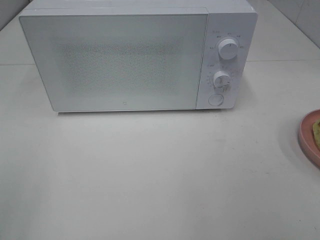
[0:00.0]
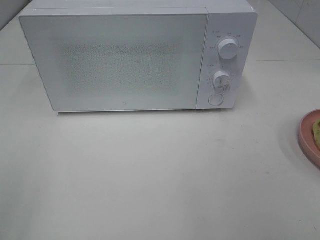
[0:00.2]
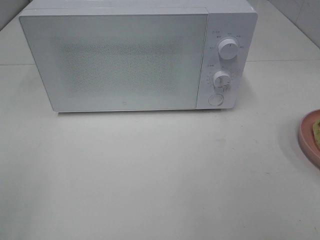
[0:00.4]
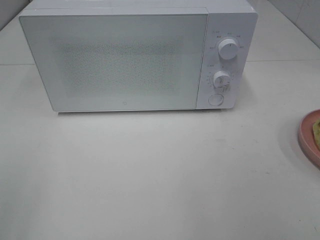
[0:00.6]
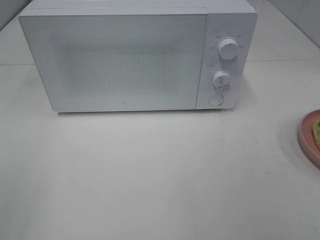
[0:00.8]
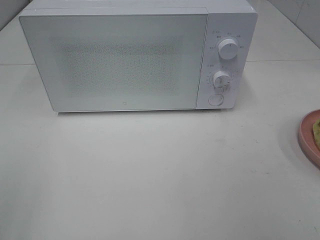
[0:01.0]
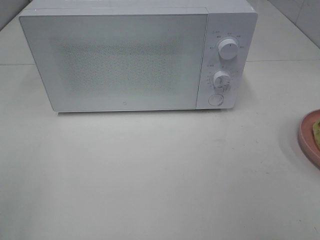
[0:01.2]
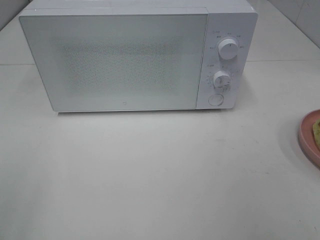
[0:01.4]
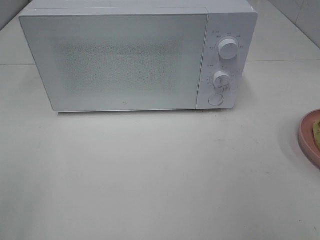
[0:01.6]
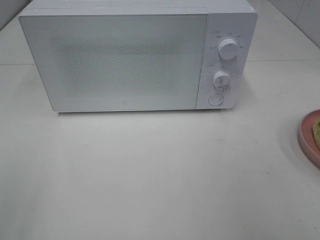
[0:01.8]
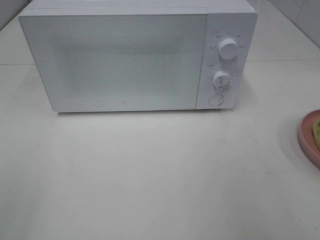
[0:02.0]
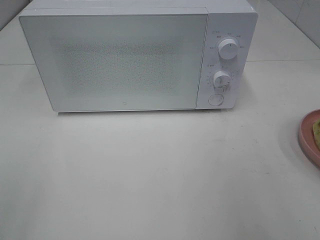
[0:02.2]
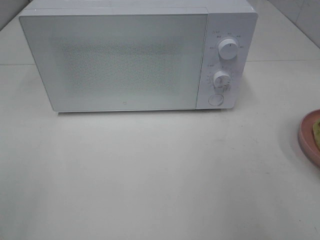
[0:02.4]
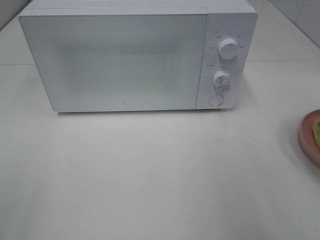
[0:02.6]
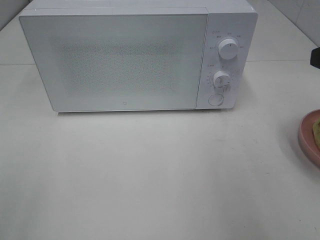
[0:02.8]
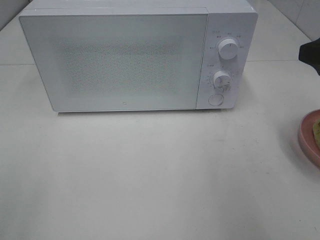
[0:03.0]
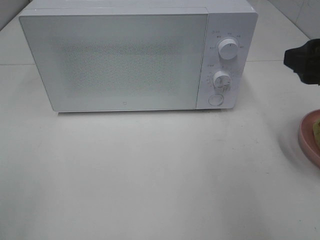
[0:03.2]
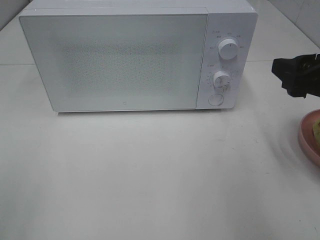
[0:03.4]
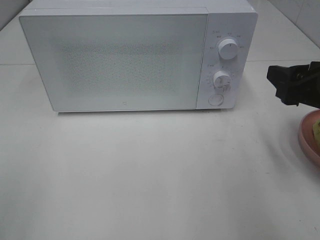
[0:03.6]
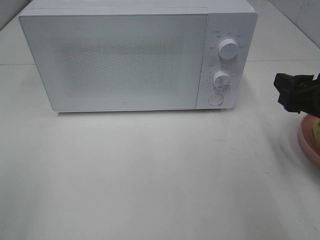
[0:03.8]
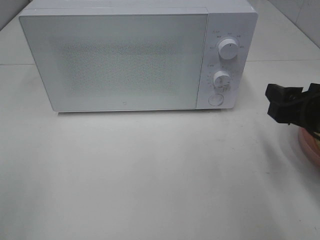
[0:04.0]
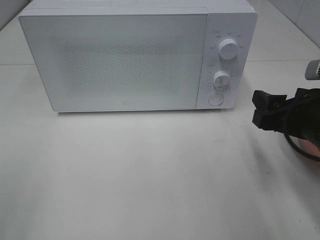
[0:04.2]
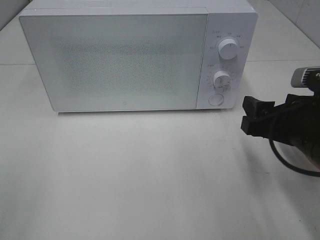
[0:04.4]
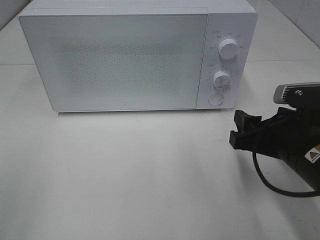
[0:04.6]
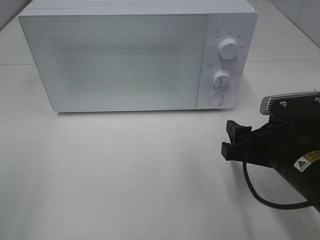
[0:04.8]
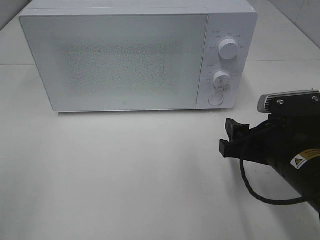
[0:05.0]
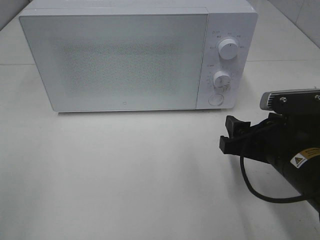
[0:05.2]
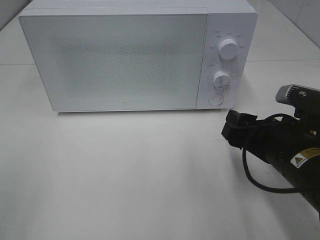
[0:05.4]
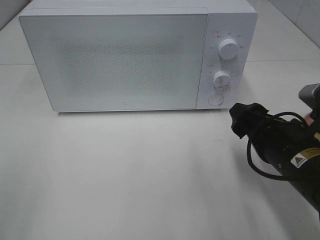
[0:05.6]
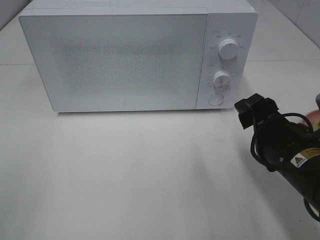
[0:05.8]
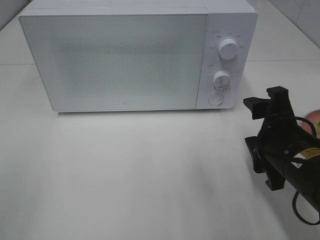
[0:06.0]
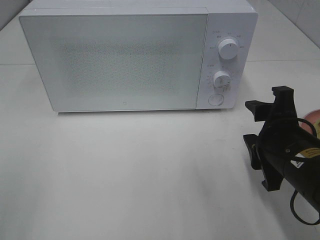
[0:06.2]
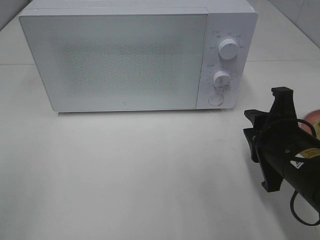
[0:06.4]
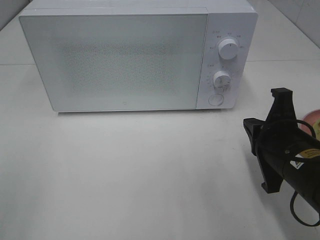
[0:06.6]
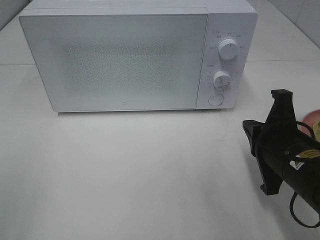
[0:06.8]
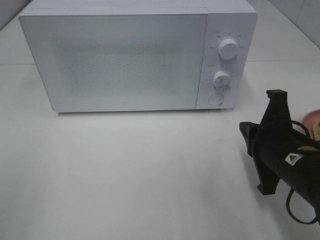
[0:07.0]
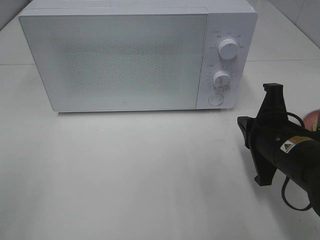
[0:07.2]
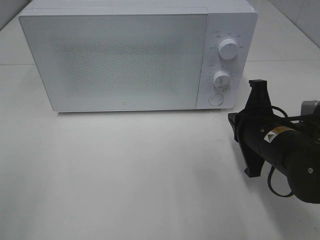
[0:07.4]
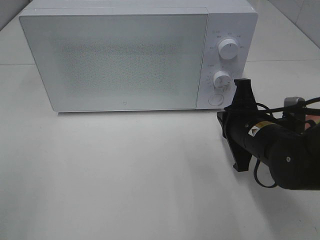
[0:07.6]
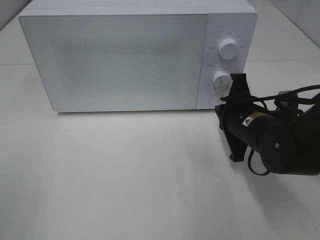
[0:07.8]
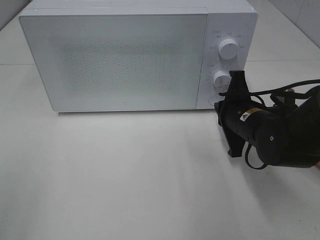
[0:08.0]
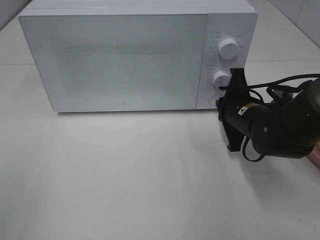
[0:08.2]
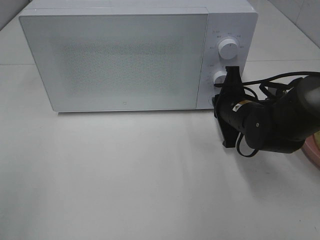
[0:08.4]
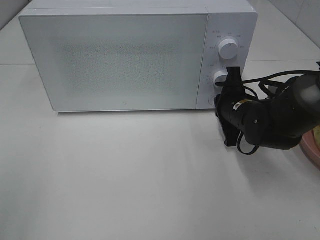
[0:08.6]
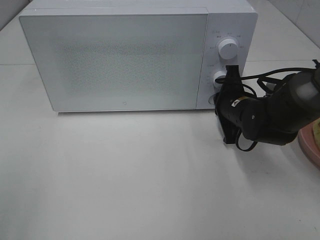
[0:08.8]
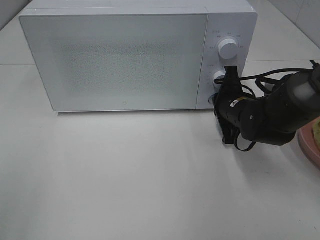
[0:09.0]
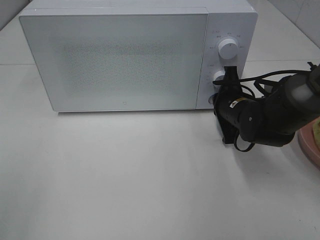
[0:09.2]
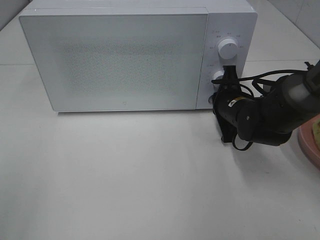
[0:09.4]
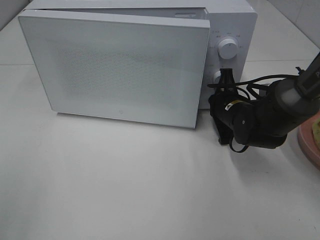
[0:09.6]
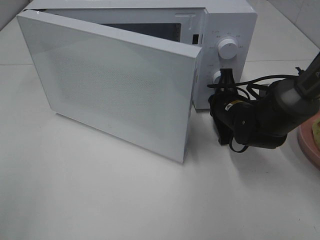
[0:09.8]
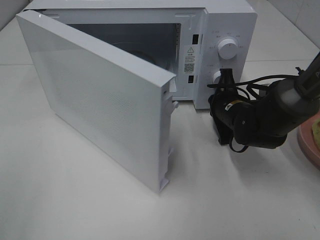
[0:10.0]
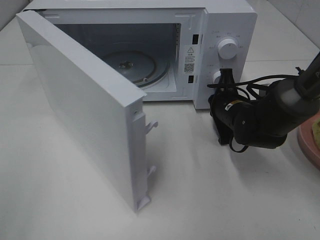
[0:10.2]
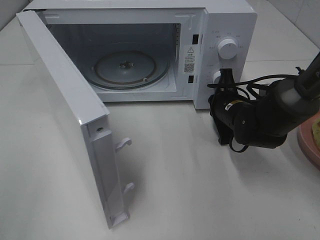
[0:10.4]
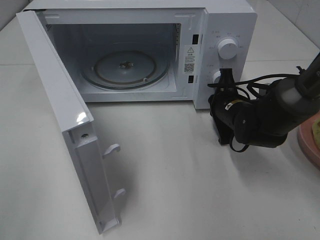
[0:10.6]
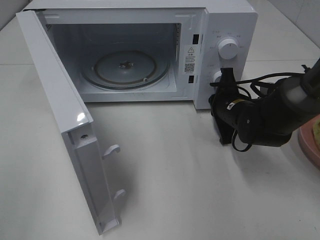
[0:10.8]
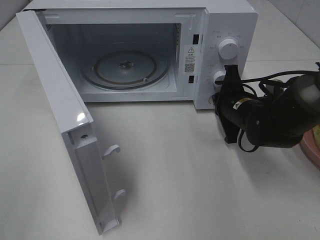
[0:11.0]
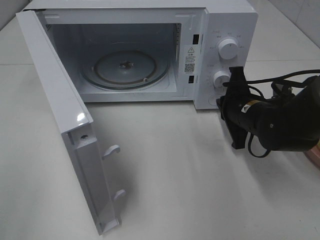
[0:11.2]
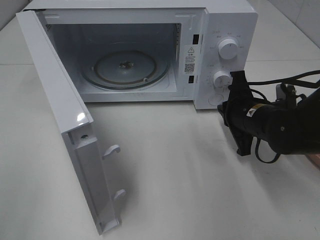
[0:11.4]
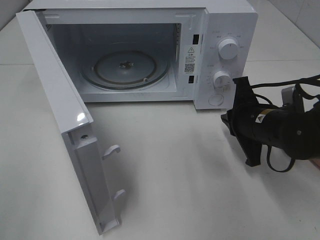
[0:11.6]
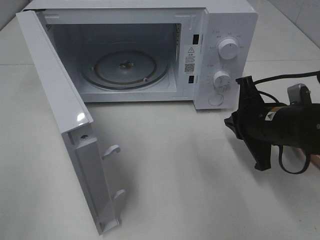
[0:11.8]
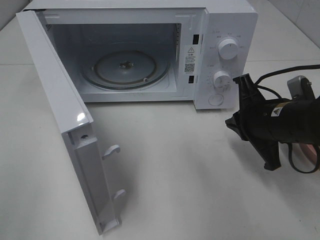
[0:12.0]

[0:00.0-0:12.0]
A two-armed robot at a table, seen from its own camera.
Task of the whole recording: Heat Sandwich.
Step, 0:00.0 to 0:11.2: Right hand: press the switch.
0:01.6 to 0:03.0: The right gripper shifts some 15 cm forward.
0:03.0 to 0:04.4: The right gripper is displaced downward by approximately 10 cm.
0:06.0 to 0:07.6: The right gripper goes approximately 5 cm forward, and closes.
0:07.6 to 0:09.0: The right gripper goes some 10 cm forward.
0:10.4 to 0:12.0: The right gripper is displaced backward and upward by roughly 10 cm.

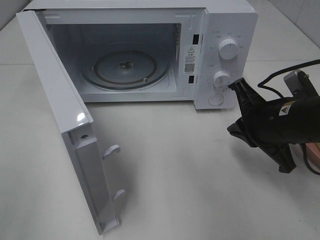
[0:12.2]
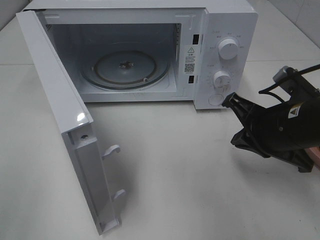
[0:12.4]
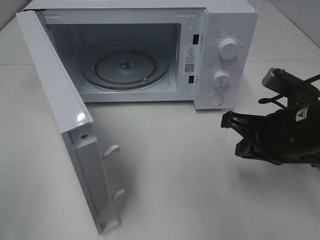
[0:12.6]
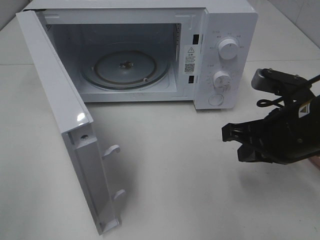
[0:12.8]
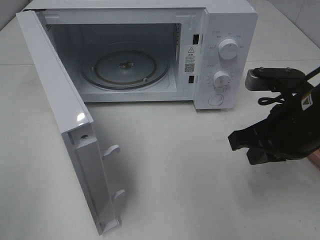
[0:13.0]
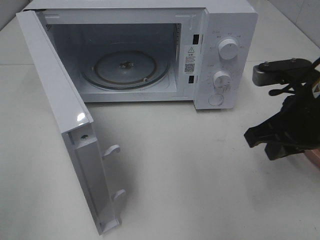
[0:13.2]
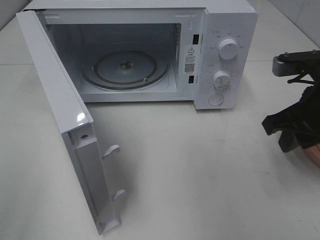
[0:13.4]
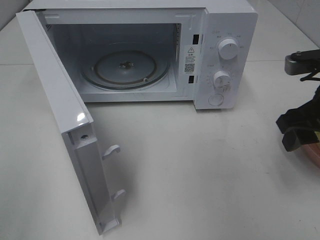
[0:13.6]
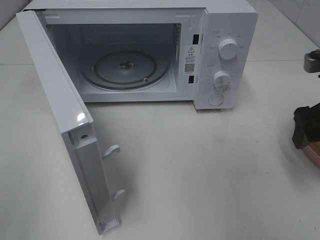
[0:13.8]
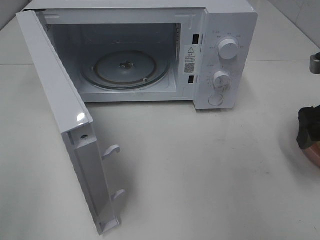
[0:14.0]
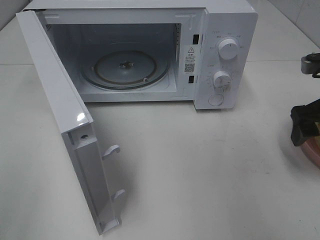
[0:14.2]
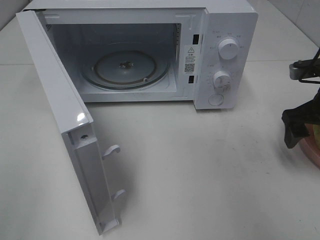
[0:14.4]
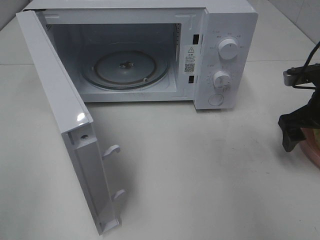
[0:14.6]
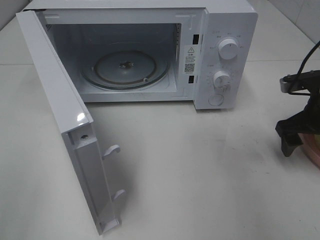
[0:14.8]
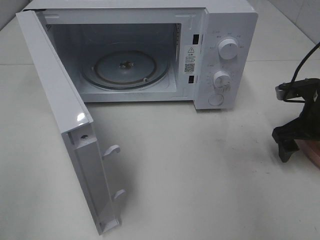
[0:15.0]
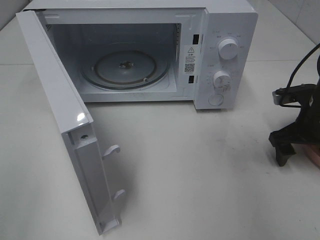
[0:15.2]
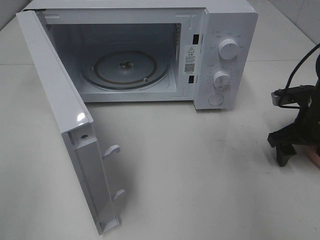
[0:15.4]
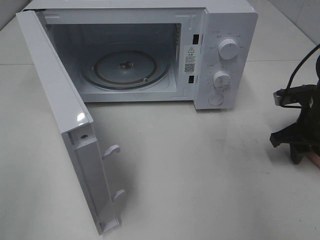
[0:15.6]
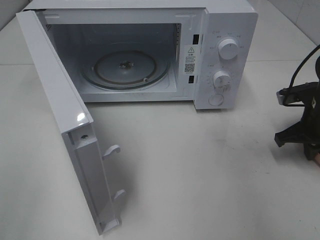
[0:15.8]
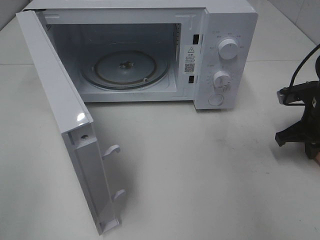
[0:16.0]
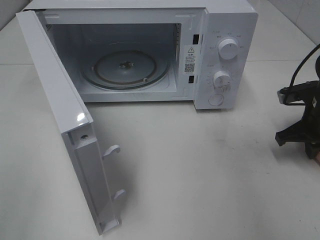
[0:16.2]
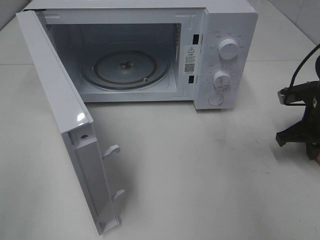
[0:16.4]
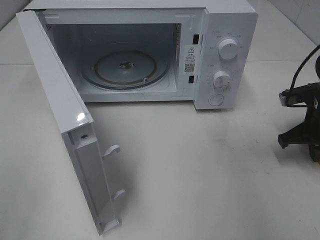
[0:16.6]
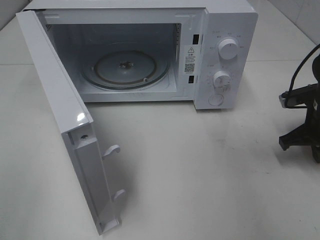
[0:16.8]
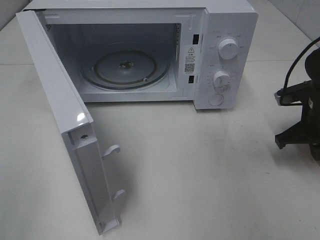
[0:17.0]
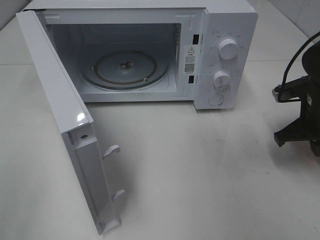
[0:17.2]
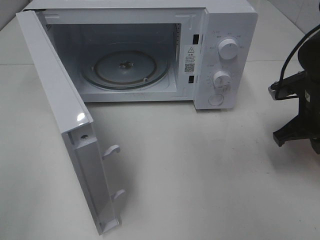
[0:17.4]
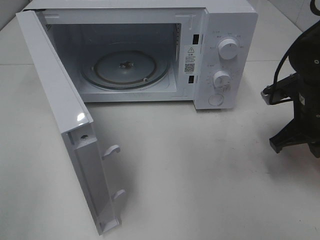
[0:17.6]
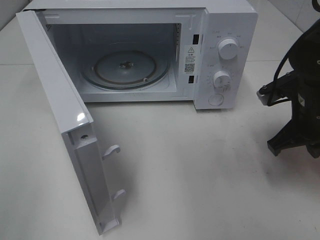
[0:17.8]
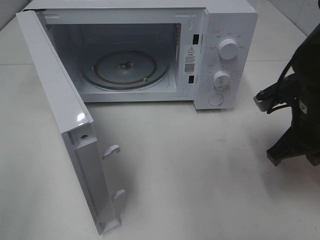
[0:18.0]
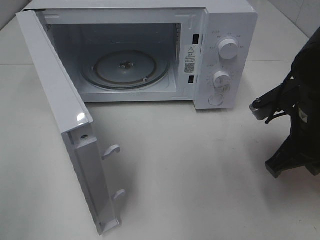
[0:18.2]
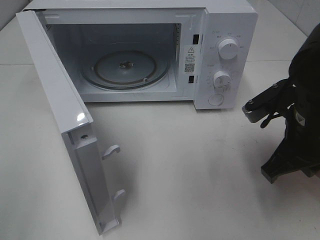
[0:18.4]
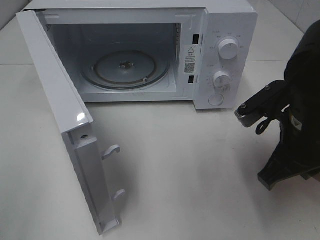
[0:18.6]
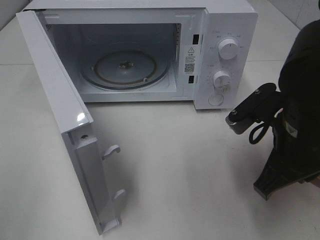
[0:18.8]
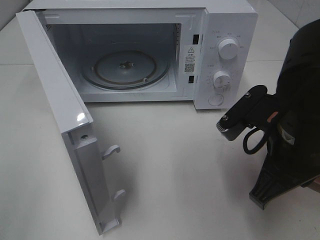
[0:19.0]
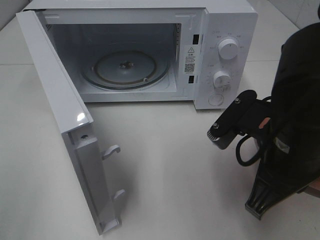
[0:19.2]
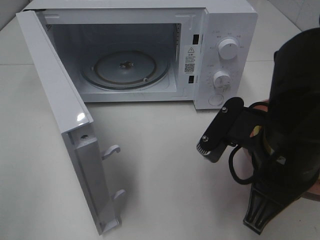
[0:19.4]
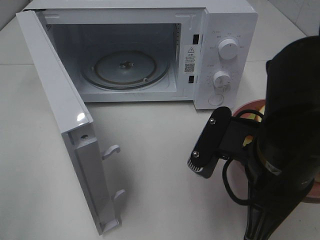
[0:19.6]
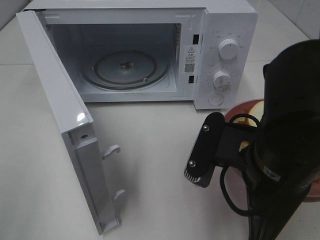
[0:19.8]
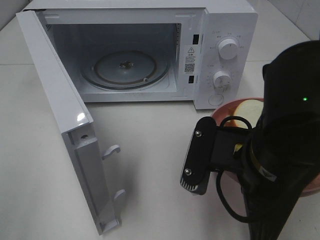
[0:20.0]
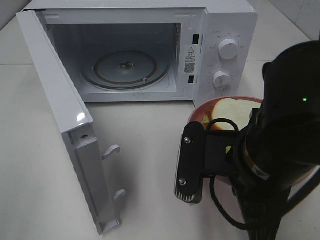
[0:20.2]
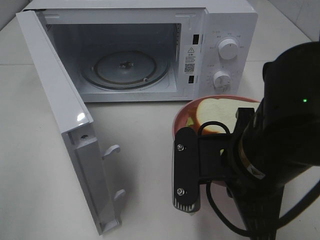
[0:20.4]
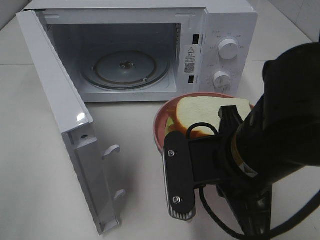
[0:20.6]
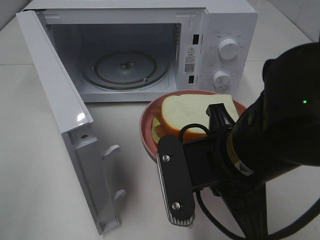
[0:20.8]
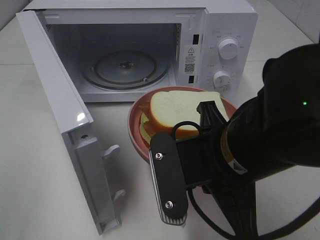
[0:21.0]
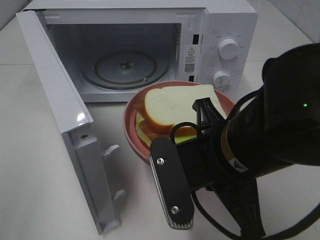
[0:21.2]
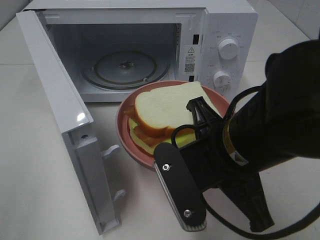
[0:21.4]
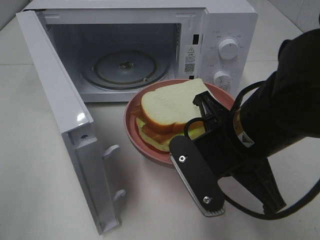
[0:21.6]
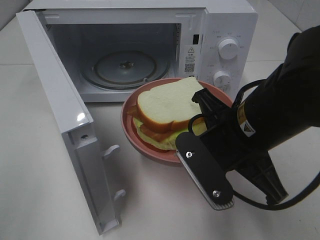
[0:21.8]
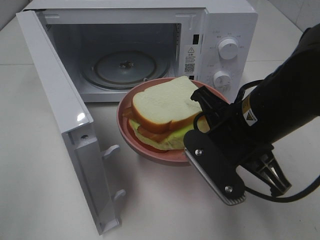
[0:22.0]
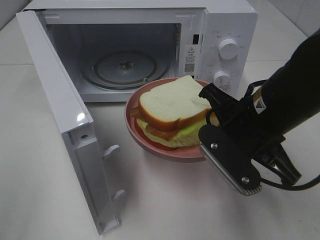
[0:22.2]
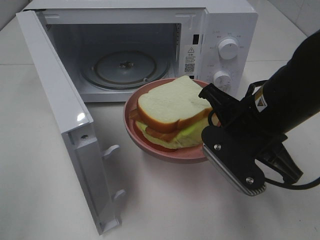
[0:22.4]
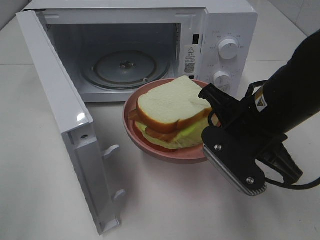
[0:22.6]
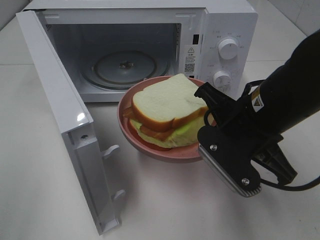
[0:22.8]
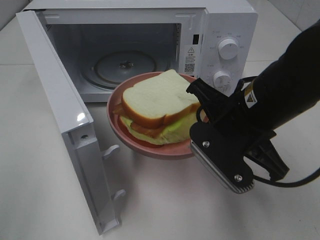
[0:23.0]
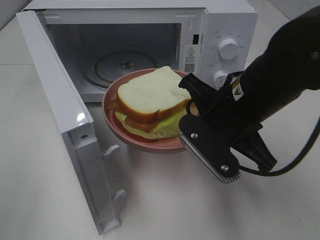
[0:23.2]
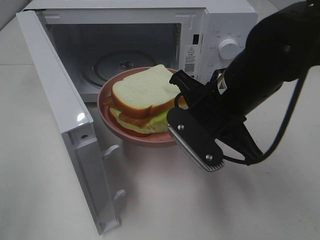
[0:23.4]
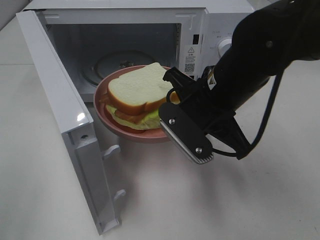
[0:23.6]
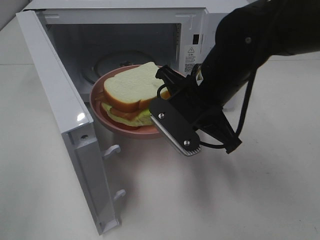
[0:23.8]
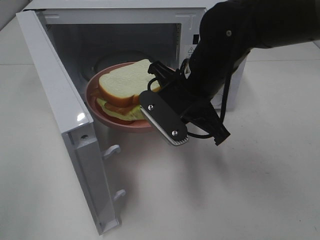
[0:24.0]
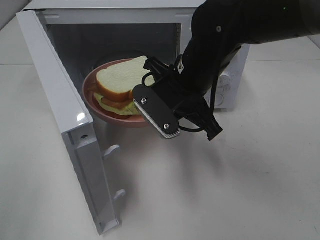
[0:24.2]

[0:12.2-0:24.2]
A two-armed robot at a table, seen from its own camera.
Task of the whole recording: Heat Sandwich.
Step, 0:12.2 to 0:16.4: Right hand: grab the plate with the sandwich.
0:12.2 to 0:13.8: The right gripper shifts approximately 10 cm to the right and upward, and opens.
0:13.8 to 0:15.2: The right gripper shifts roughly 15 cm downward and forward.
0:15.2 to 0:16.6: The right gripper closes its fingers.
0:16.6 to 0:18.2: The right gripper travels to the left, backward and upward by approximately 15 cm.
0:18.2 to 0:19.8: The right gripper moves to the left and backward, some 15 cm.
0:21.2 to 0:22.6: The right gripper moves forward and to the right, about 10 cm.
0:22.6 to 0:24.2: The right gripper moves to the left and forward, approximately 10 cm.
